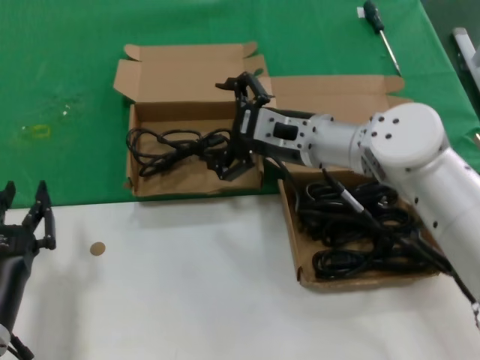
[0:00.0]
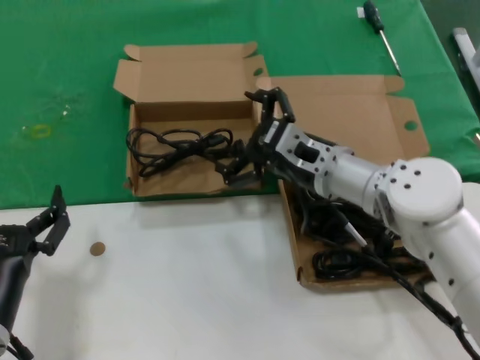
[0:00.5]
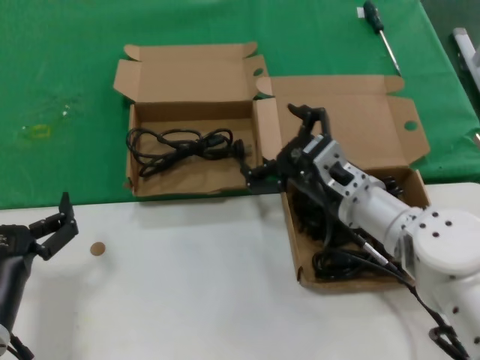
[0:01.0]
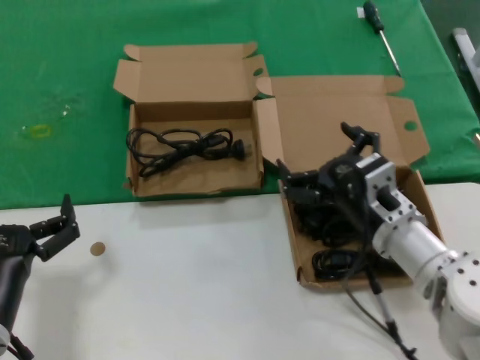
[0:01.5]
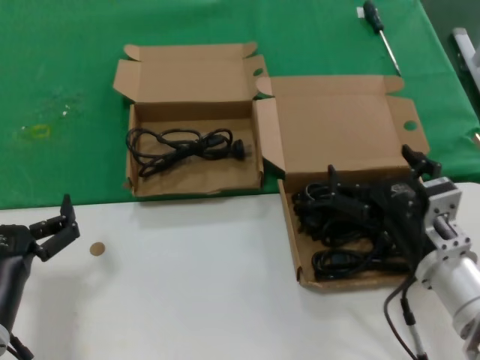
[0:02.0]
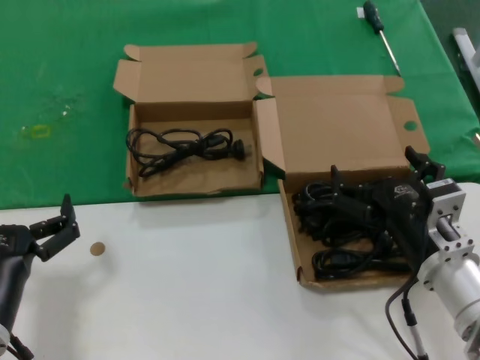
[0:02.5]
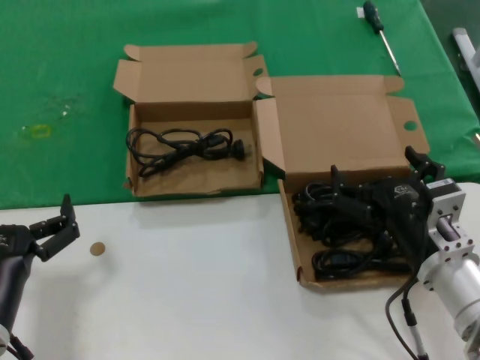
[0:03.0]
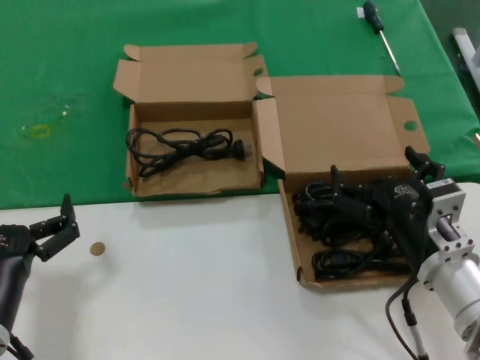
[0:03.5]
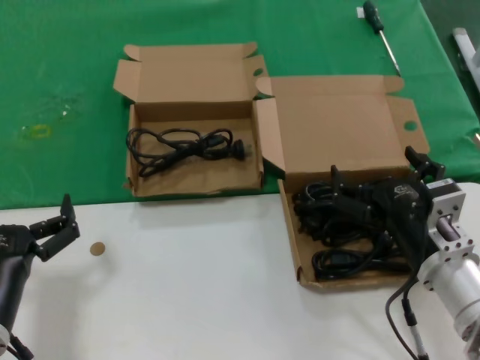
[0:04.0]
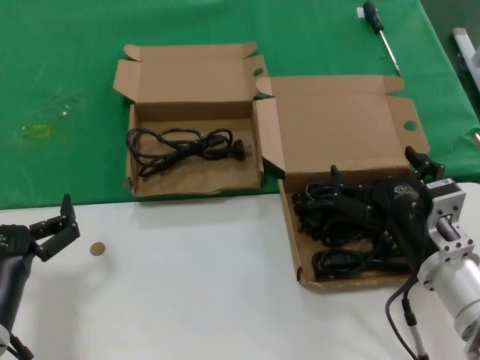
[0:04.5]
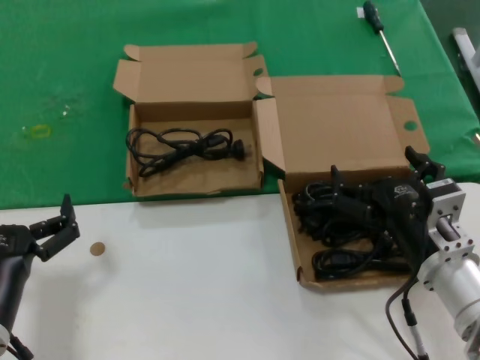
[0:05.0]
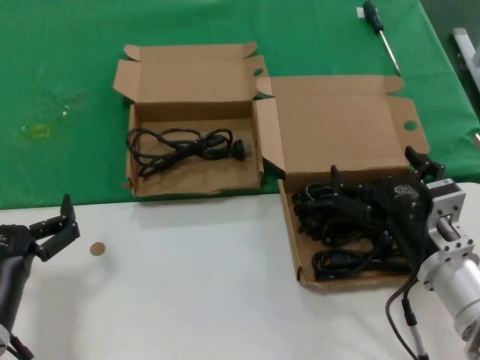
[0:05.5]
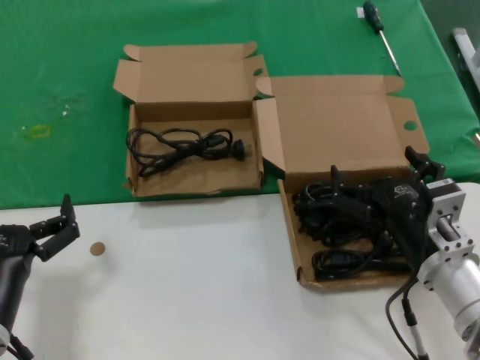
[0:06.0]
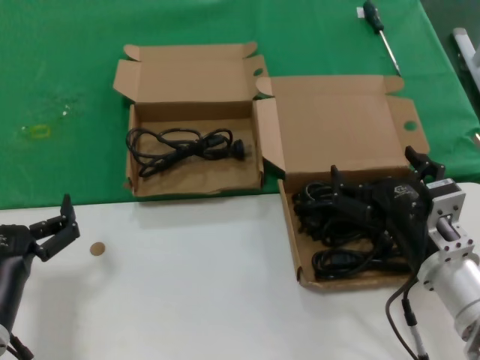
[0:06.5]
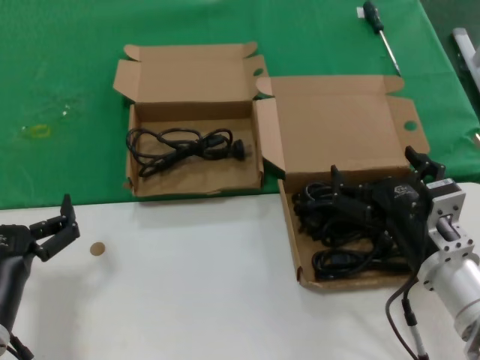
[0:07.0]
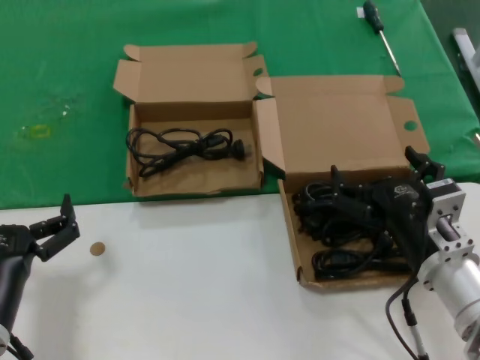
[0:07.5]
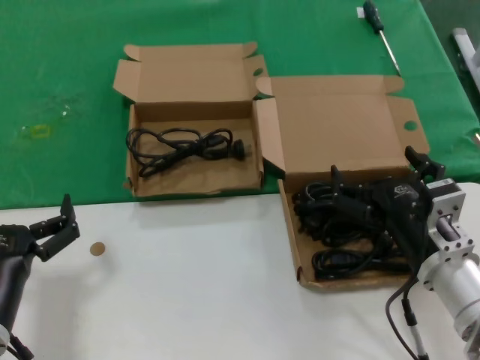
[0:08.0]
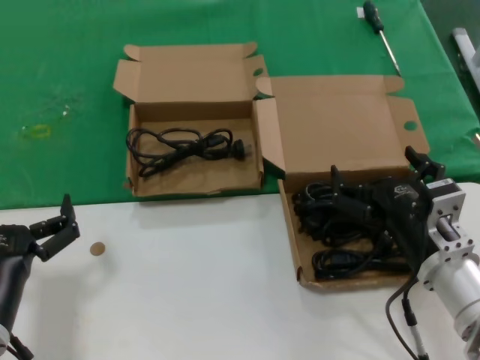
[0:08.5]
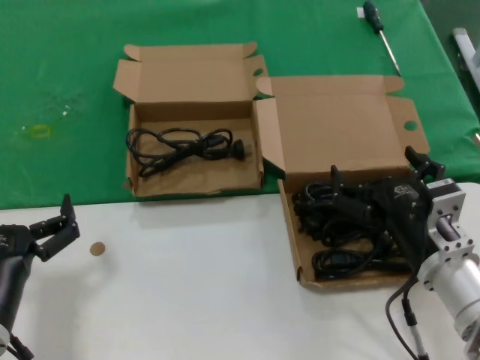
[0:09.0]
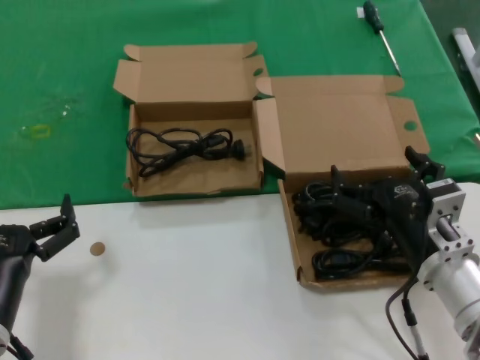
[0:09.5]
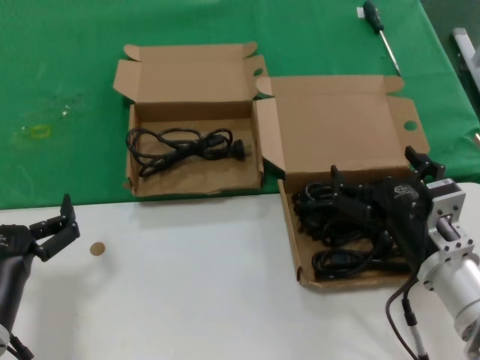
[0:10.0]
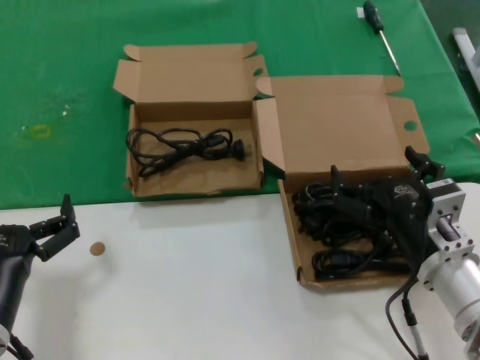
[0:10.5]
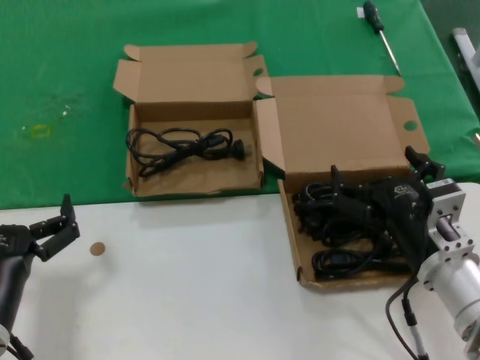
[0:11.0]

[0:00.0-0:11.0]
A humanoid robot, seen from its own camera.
Task of the whole recording: take the parts from the box containing them and put them into an empty box.
0:00.0 to 0:02.0: The right hand shifts about 25 cm backward, downward and to the right.
0:02.0 to 0:11.0: Neither hand changes place.

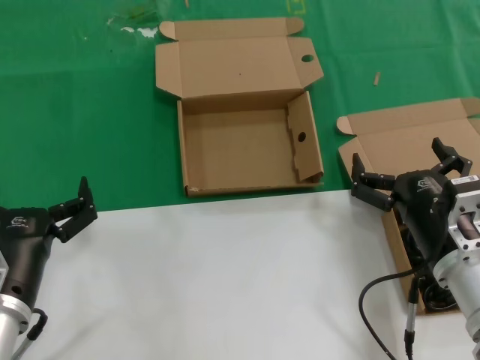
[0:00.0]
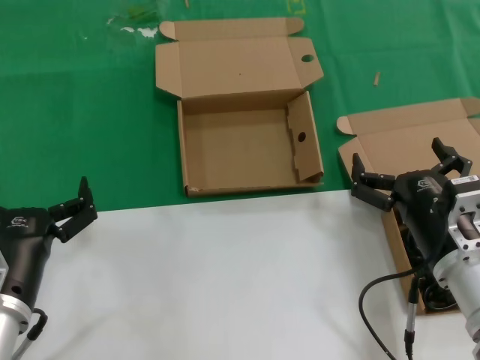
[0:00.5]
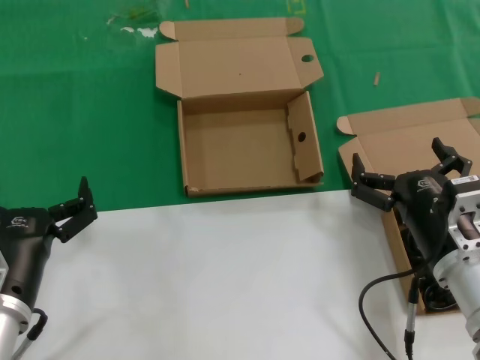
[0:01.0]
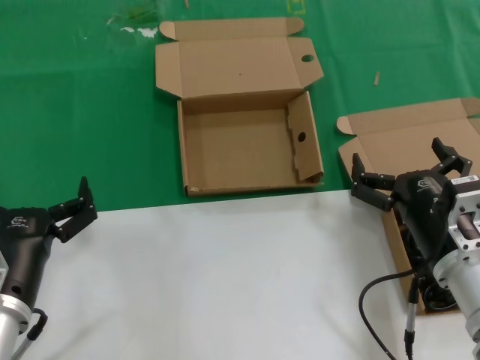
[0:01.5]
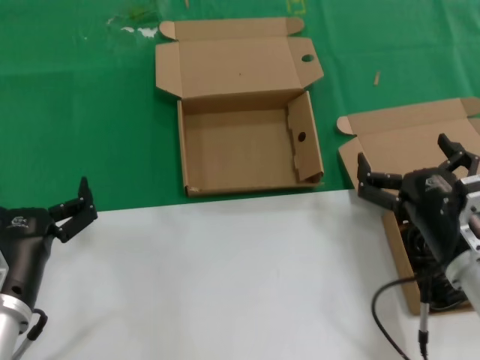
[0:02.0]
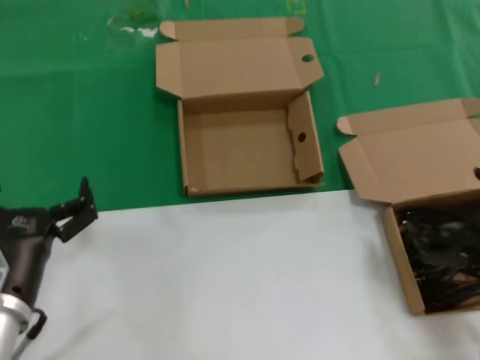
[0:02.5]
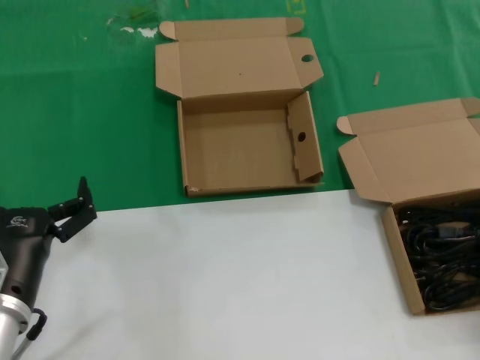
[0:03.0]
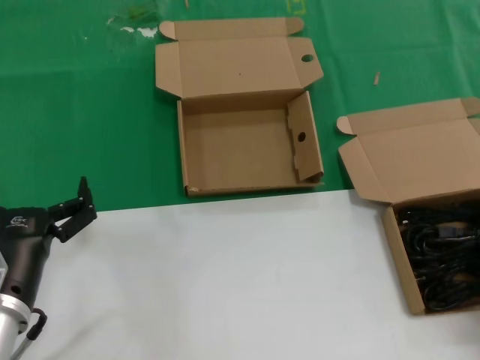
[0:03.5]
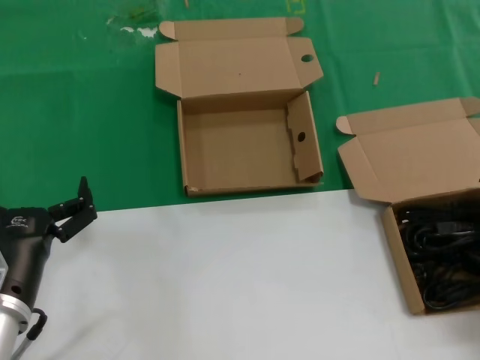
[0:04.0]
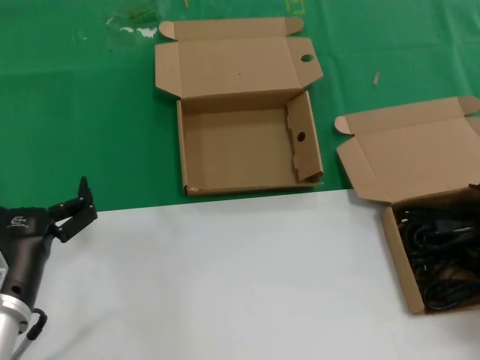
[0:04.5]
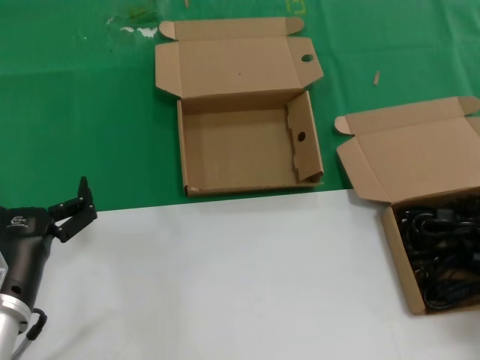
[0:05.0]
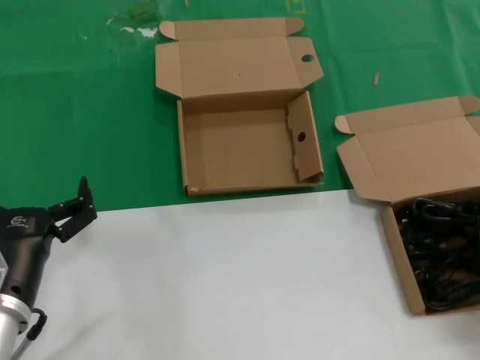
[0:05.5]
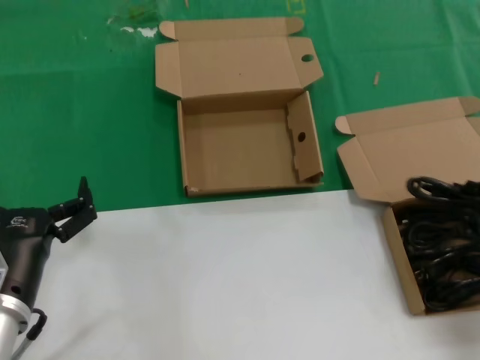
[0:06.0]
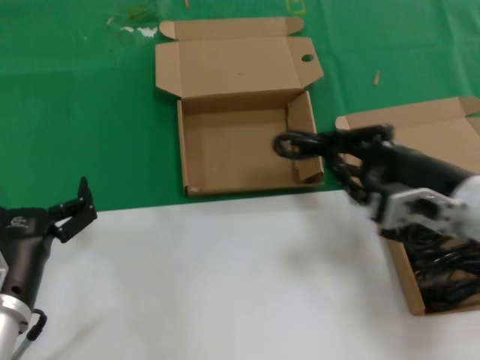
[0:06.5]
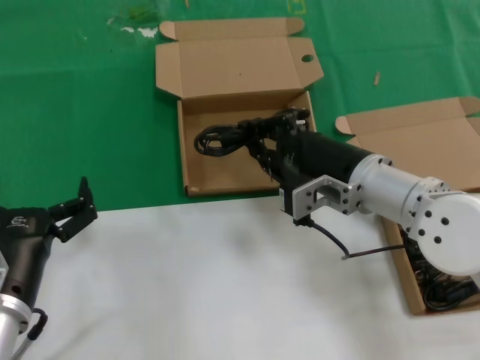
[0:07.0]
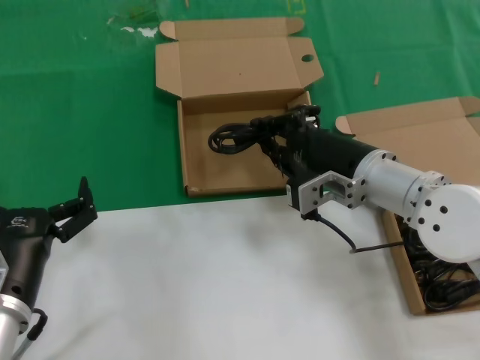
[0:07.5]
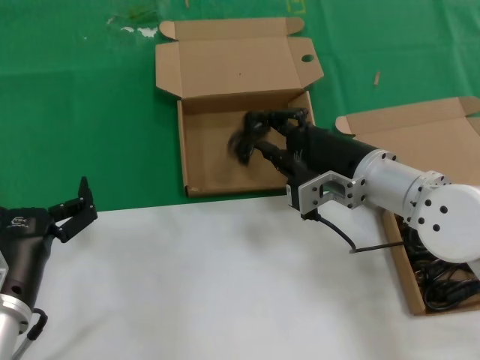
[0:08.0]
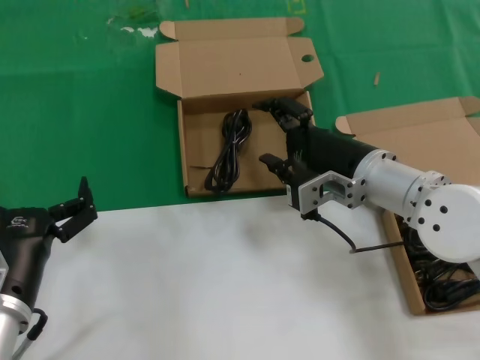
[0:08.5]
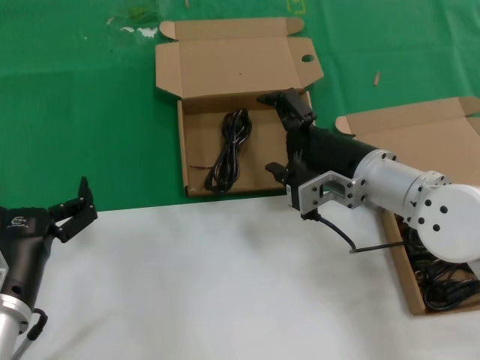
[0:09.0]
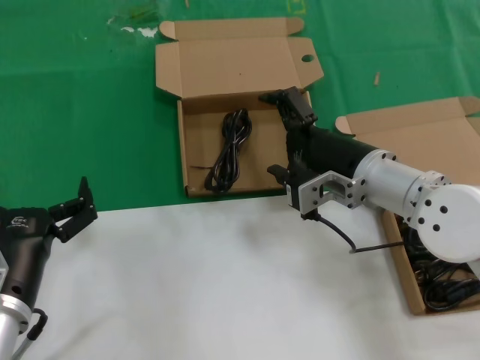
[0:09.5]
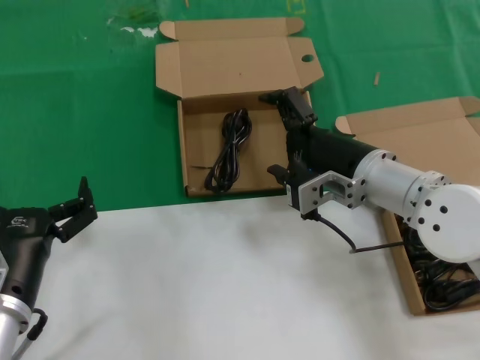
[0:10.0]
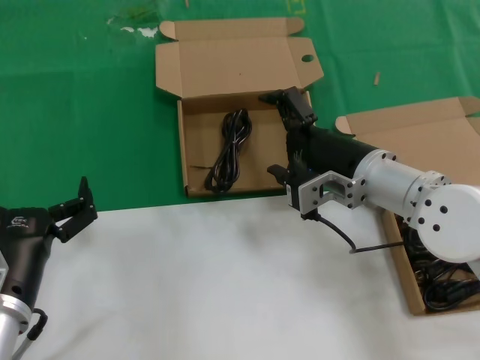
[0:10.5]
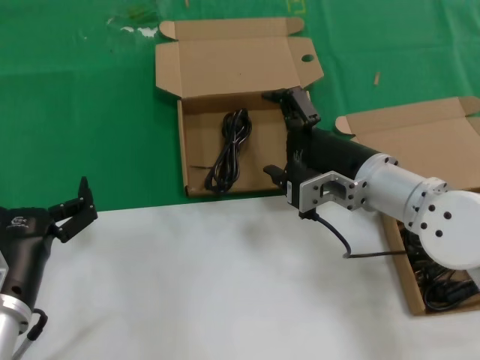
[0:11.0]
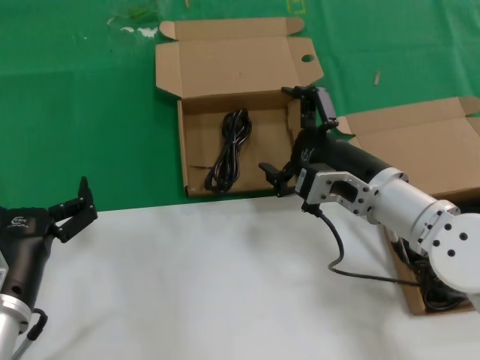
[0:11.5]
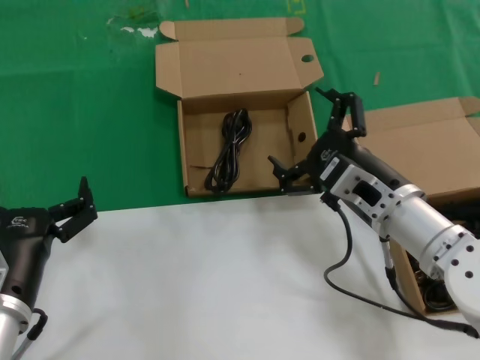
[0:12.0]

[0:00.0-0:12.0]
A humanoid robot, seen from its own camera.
Task of the whole recording: take the parts from the box containing them and put them into an empty box.
Step, 0:00.0 to 0:05.0: Grasp the data cable.
Step, 0:05.5 to 0:08.5: Place the data cable in the another box.
0:00.0 to 0:02.0: Both hands stay about where they are.
0:02.0 to 0:04.0: The right hand shifts roughly 15 cm to the right.
0:04.0 to 0:06.0: The hands move only a little.
0:06.0 to 0:08.0: The right hand heads to the left and forward, covering roughly 25 cm.
0:08.0 to 0:10.0: The two hands keep their place.
0:10.0 to 0:12.0: The right hand shifts by about 5 cm.

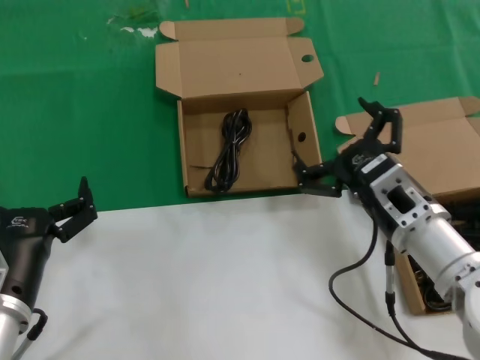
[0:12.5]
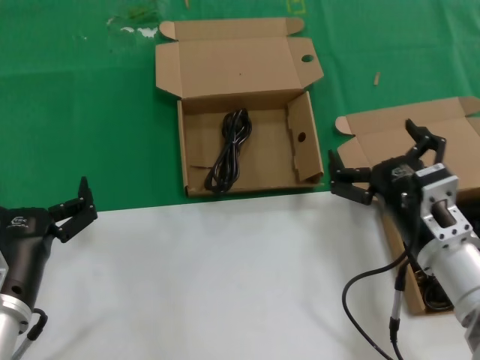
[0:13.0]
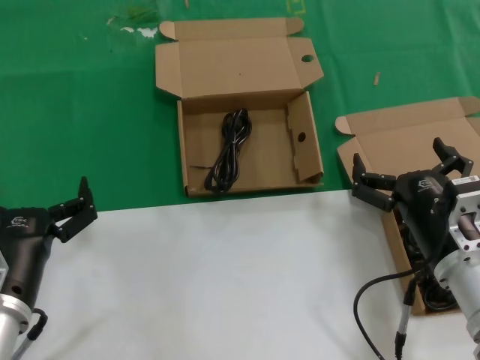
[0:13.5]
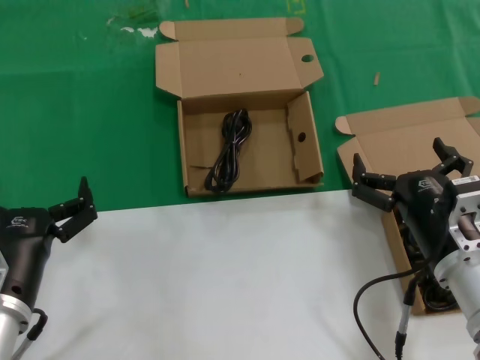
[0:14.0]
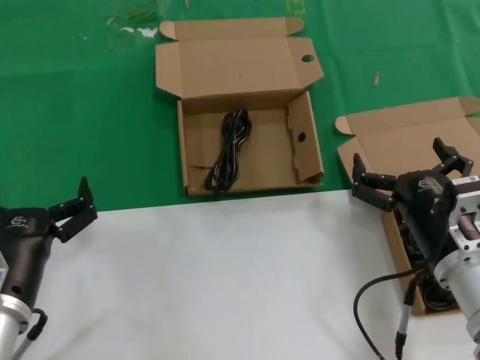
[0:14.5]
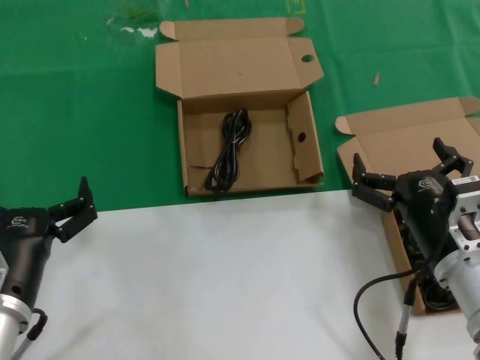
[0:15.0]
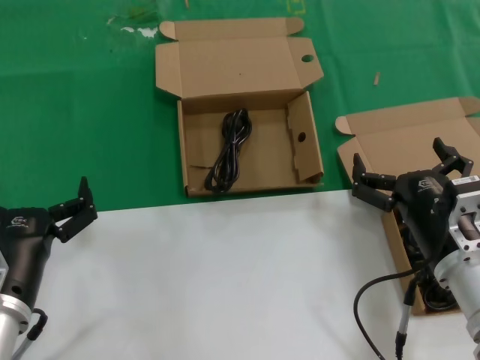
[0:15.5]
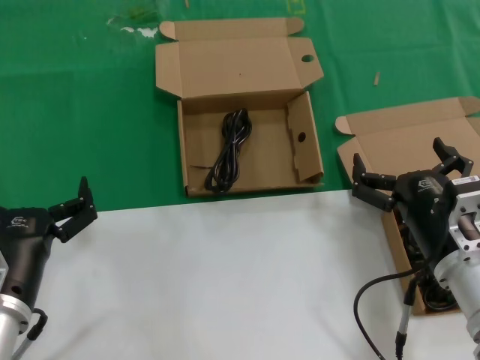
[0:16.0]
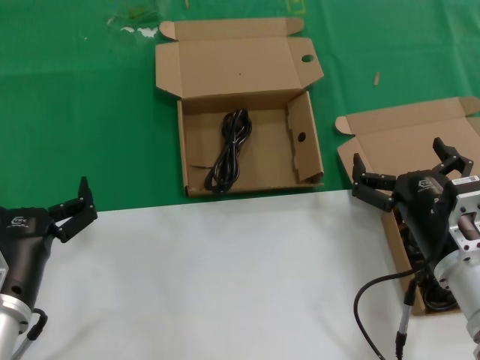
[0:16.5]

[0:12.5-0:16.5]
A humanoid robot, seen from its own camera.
Task of the whole recording: take the parts from the box containing them and put them into an empty box.
0:12.5 to 0:14.5: The right hand changes place by approximately 5 cm.
0:14.5 to 0:16.5: Both hands stay put.
